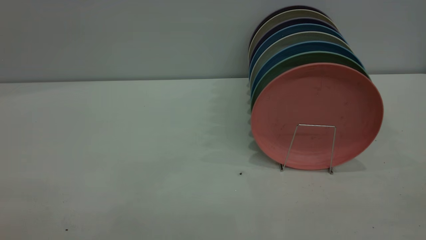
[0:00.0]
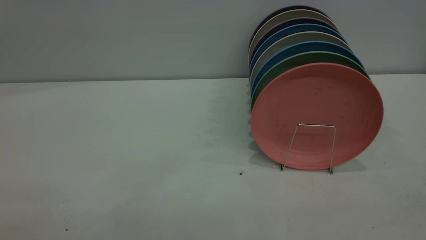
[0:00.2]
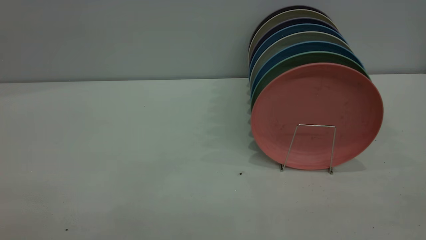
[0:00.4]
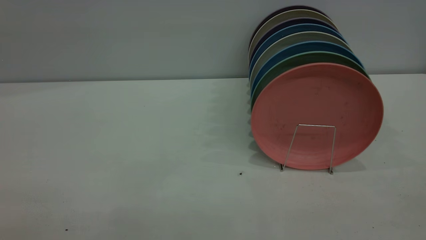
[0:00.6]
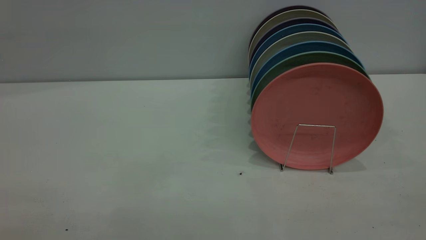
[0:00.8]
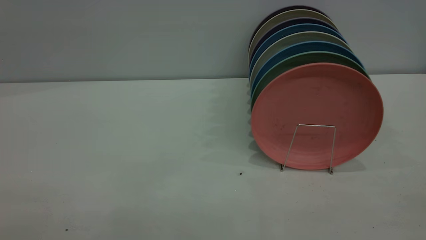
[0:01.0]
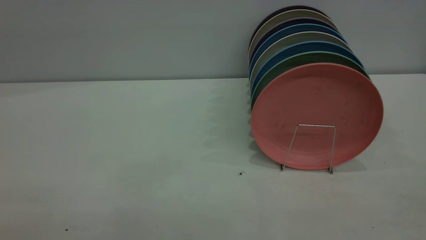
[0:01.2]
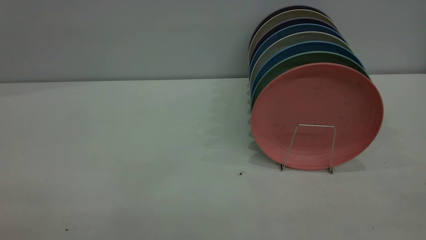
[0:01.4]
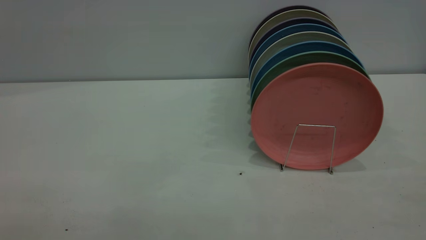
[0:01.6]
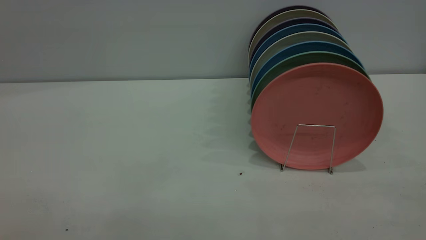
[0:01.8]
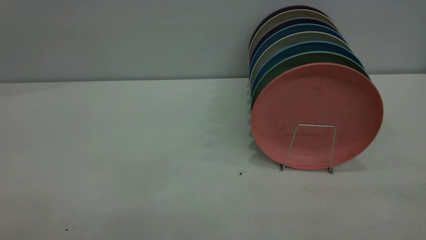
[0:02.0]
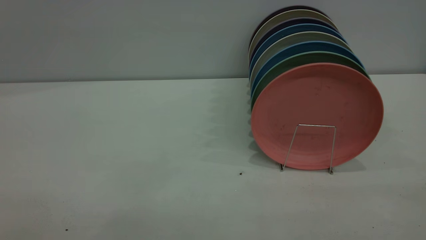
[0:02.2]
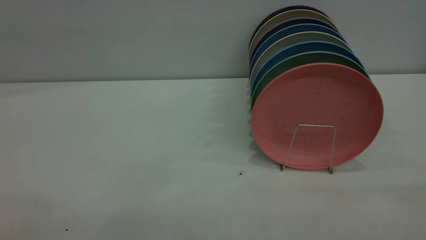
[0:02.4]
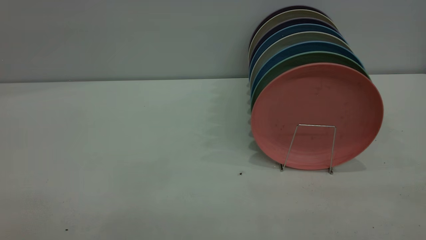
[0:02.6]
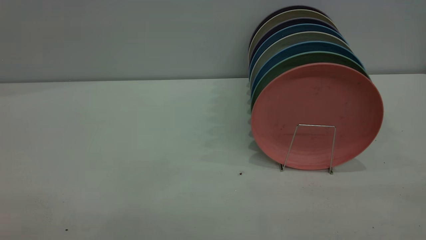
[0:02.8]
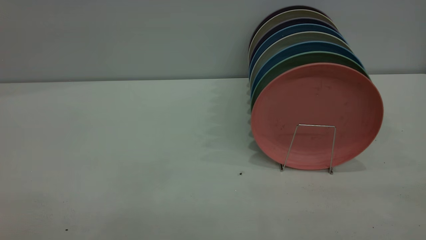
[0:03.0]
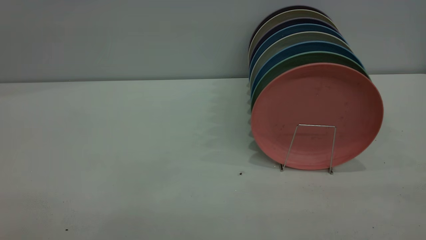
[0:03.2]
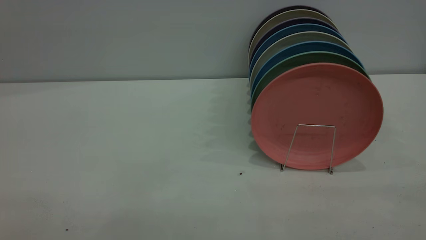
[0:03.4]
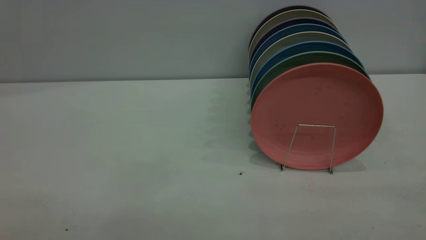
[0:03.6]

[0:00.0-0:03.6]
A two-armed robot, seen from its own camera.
Task of the whole recording: put the plate on the plate rack.
0:01.8 to 0:03.6: Both grippers stay about where they are.
